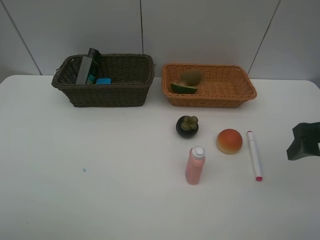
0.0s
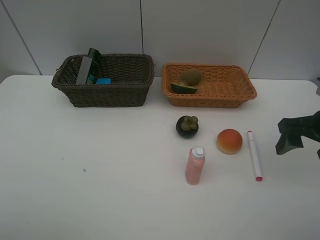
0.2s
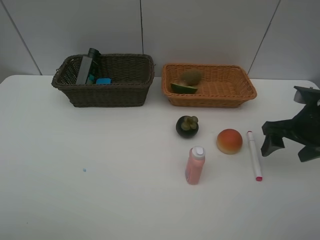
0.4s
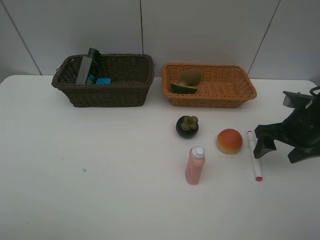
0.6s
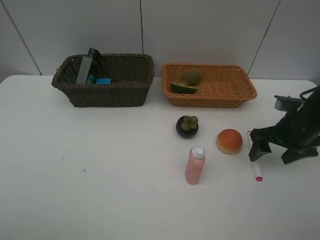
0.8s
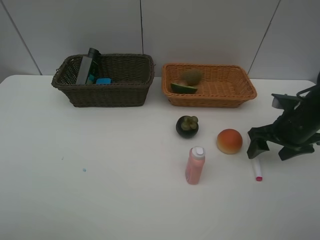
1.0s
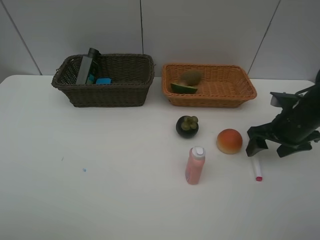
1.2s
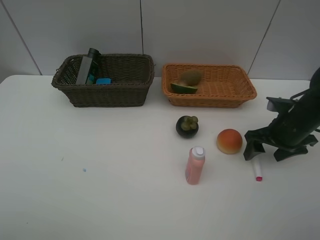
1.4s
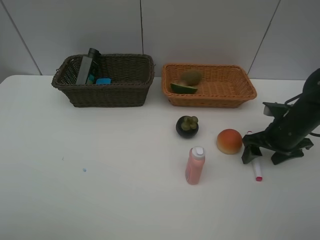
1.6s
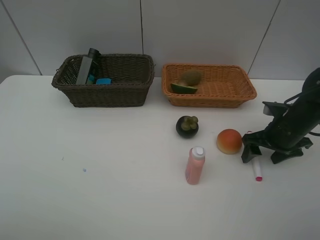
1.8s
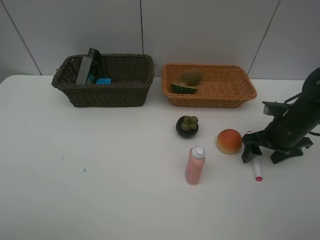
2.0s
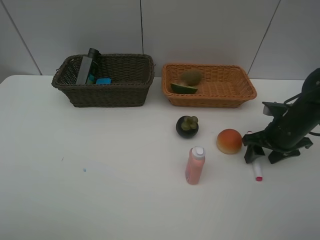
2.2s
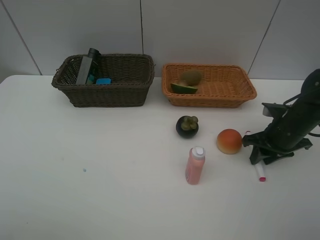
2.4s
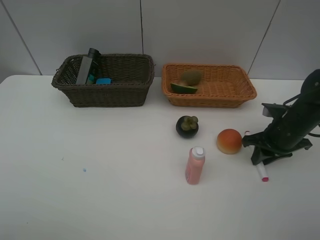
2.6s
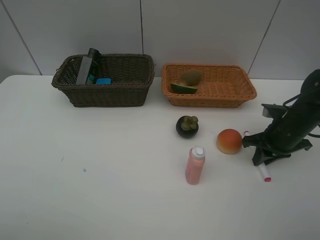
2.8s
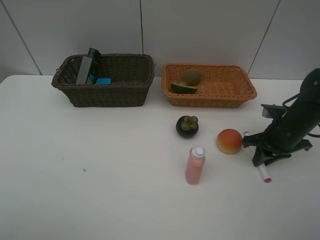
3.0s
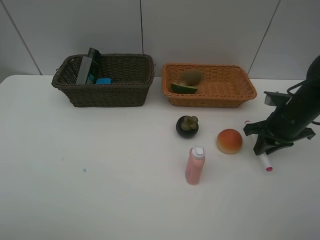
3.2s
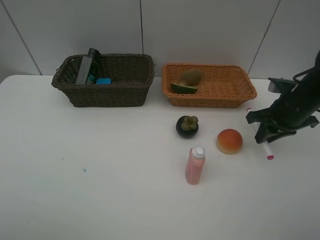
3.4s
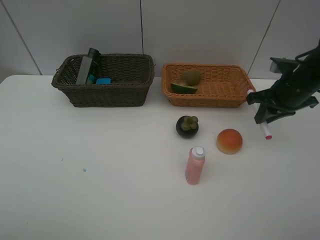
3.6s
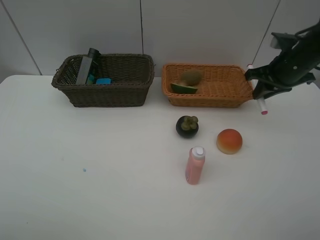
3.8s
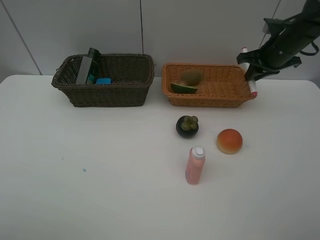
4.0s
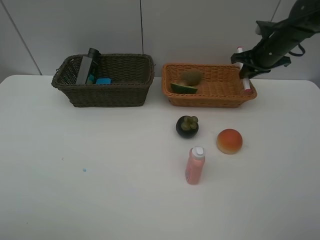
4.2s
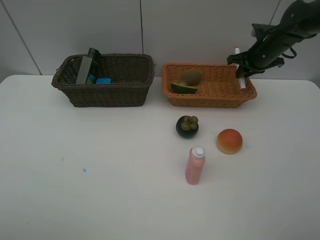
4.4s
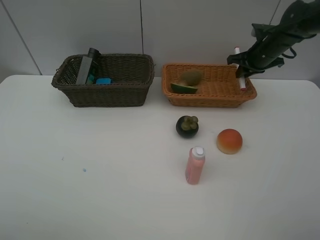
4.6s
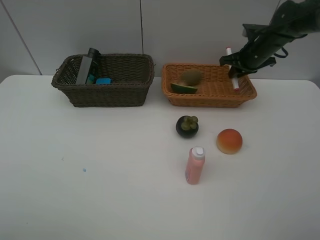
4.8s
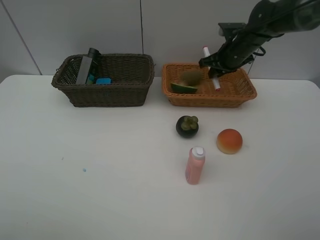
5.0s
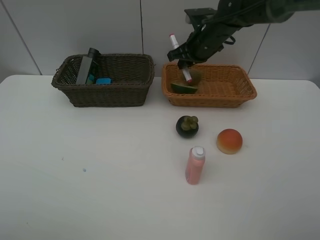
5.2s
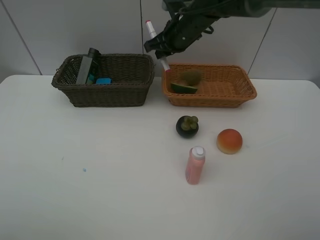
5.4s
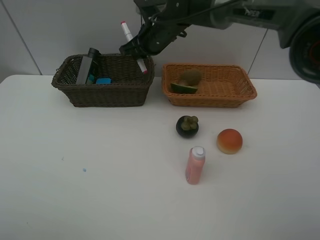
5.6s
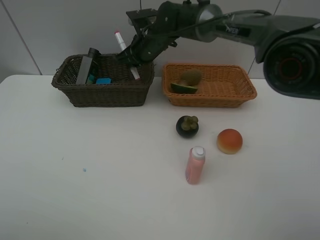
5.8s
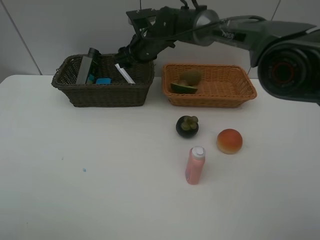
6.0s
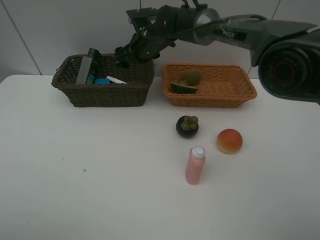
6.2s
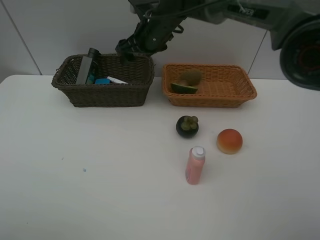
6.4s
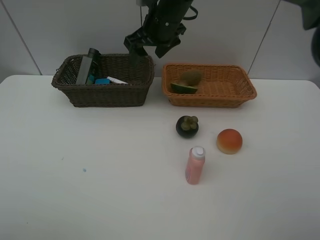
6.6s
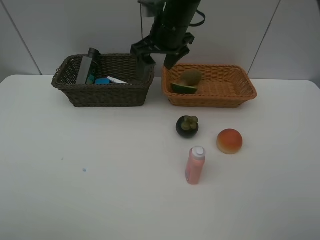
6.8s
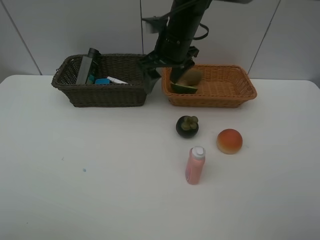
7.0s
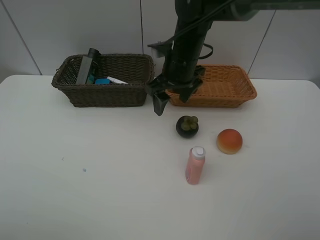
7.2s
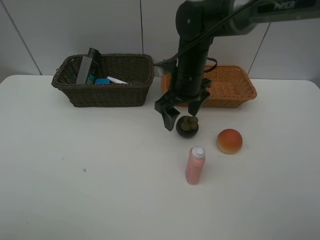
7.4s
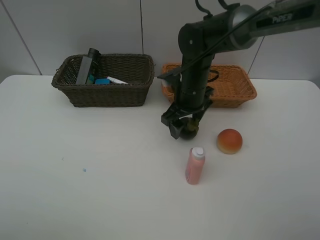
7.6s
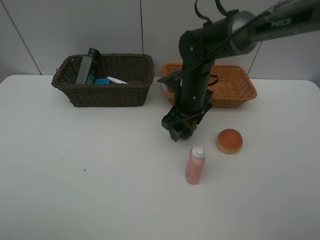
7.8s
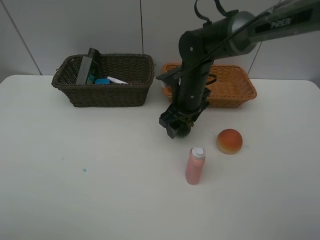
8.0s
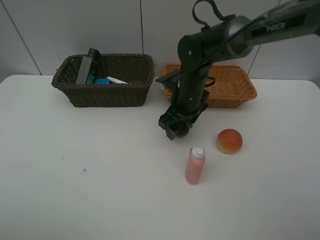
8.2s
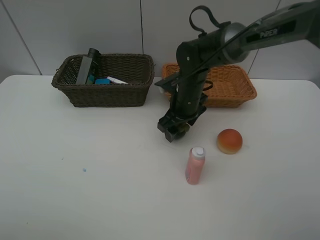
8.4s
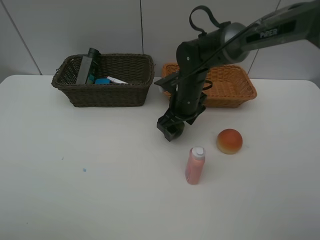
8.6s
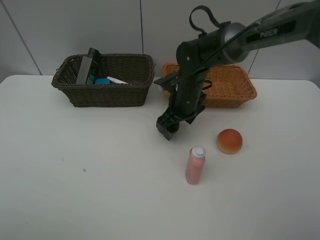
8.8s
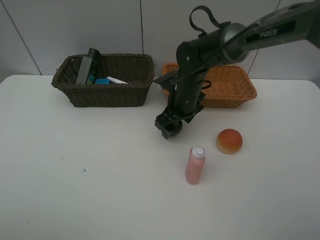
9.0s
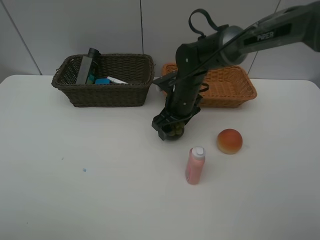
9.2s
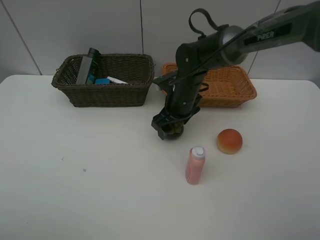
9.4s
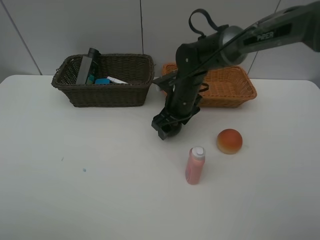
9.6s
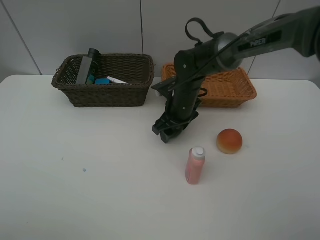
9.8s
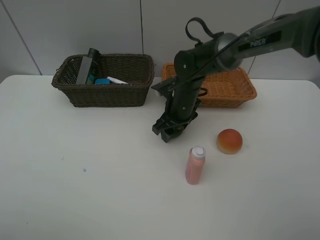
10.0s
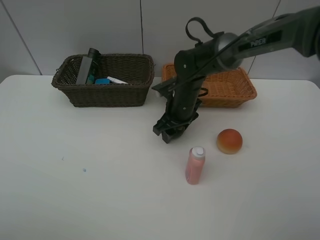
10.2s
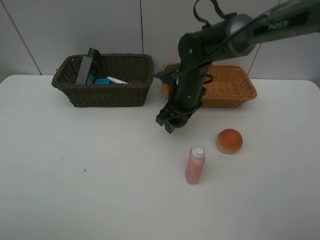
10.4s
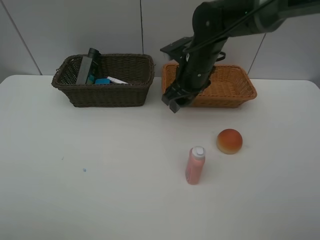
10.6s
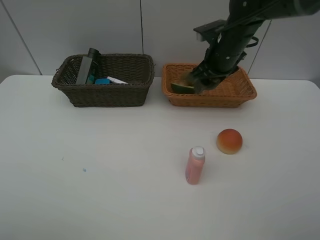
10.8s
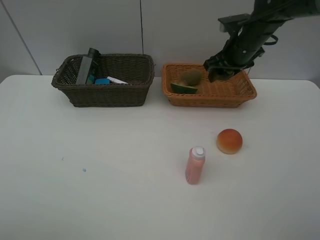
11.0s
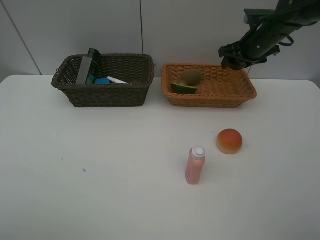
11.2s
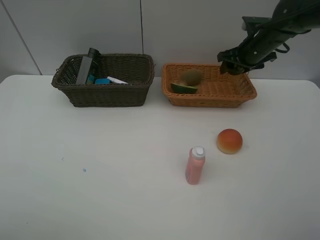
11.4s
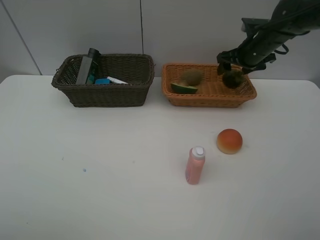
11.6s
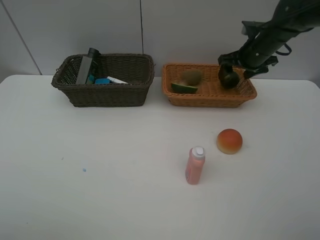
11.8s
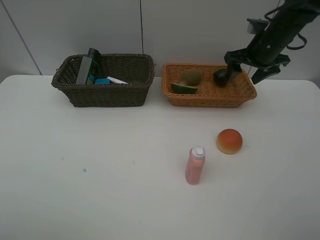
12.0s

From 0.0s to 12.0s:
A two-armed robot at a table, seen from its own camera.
Task of the whole recording: Place multiple objects separately in different baskets.
Step, from 0.0s to 3.2s: Pick up pink marker pen with right gripper.
Step, from 3.4s to 6.2s: Place the pink marker pen in the dark basket with right gripper.
Step, from 6.4s to 10.4s: Pick up the mangosteen with right gripper.
Step, from 10.6s to 11.8s: Place the mangosteen in the light basket with right gripper.
From 0.0s to 1.6s: The right gripper moves downward and forward, approximately 15 cm.
From 1.6s to 3.0s: The right gripper closes its fingers.
From 3.0s to 4.4s: The right gripper heads forward and upward, covering about 20 cm.
From 4.4s to 6.0s: The right gripper heads to the left, covering some 30 cm, and opens its fingers.
From 6.0s to 7.6s: The right gripper shifts approximately 15 cm backward and to the right, and travels upward and back again, some 10 cm each way.
From 7.6s to 10.4s: There are only small adjustments of the grippers.
From 10.4s to 12.0s: The right gripper goes roughly 20 cm to the right and upward.

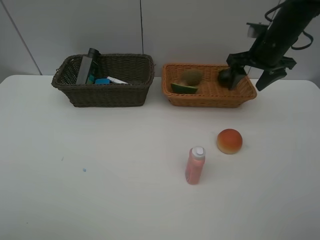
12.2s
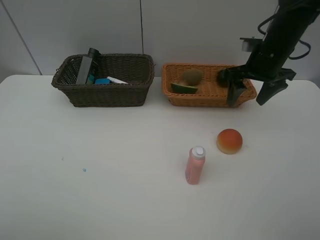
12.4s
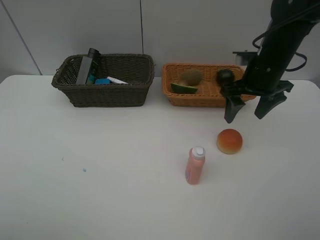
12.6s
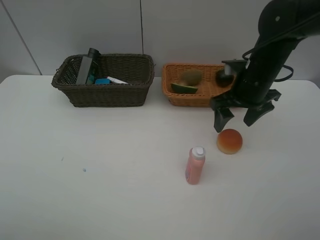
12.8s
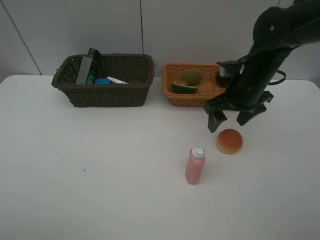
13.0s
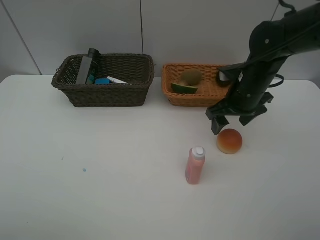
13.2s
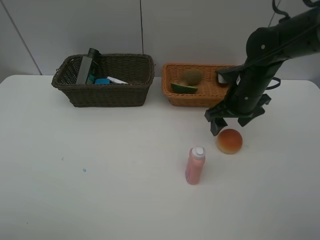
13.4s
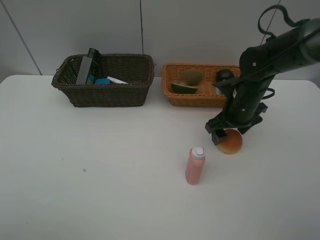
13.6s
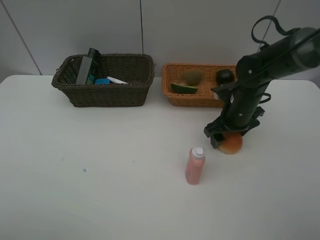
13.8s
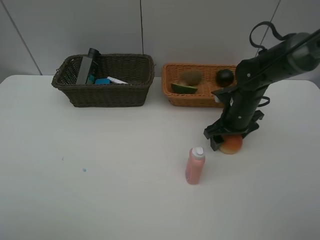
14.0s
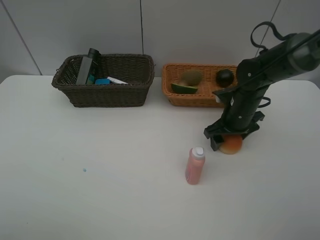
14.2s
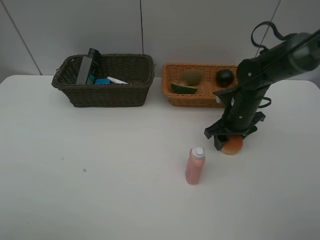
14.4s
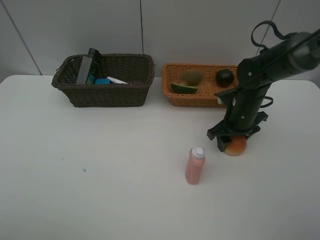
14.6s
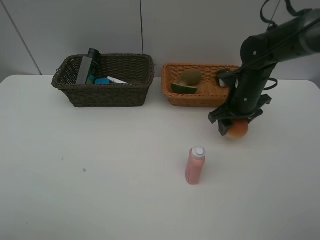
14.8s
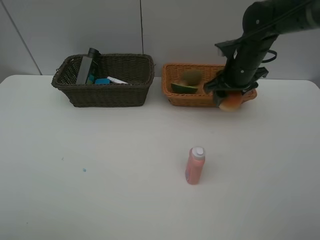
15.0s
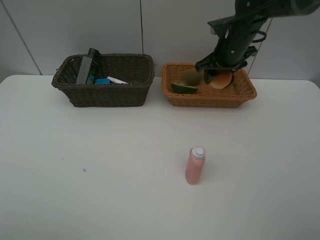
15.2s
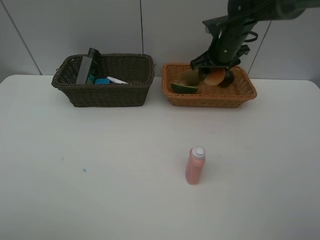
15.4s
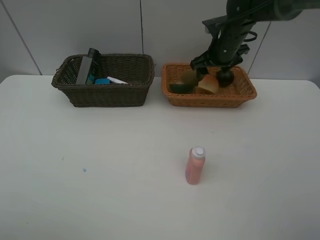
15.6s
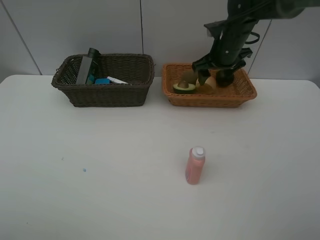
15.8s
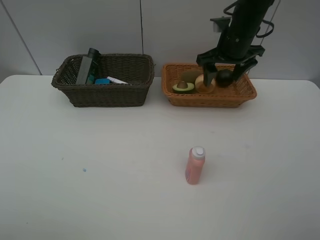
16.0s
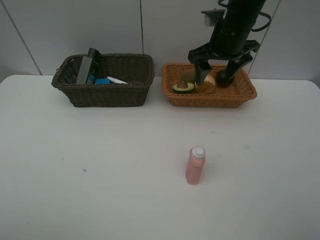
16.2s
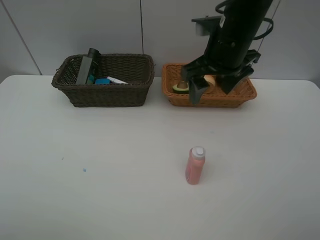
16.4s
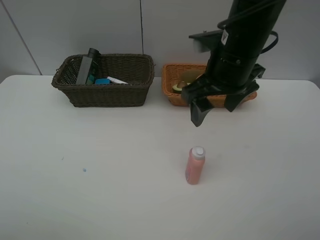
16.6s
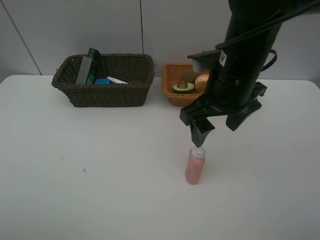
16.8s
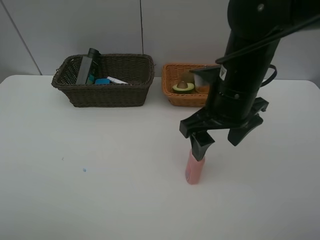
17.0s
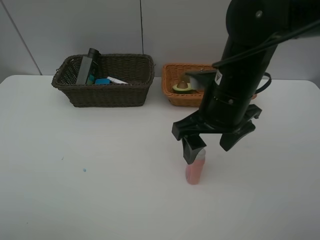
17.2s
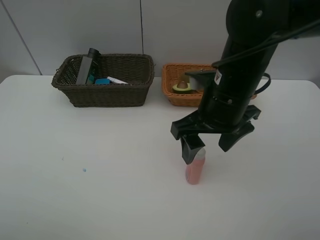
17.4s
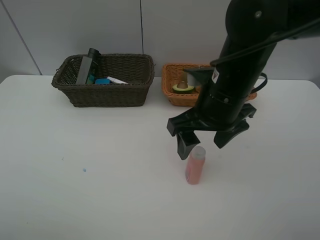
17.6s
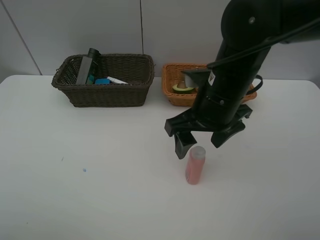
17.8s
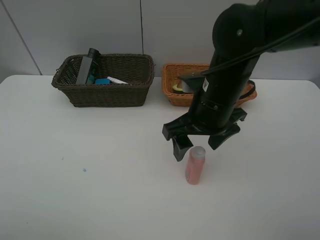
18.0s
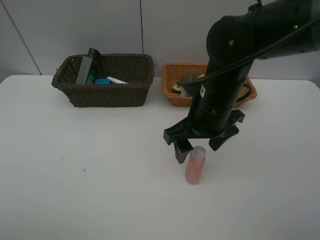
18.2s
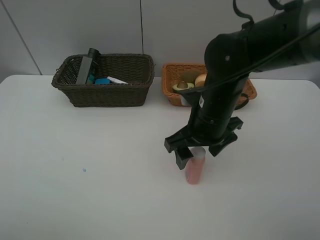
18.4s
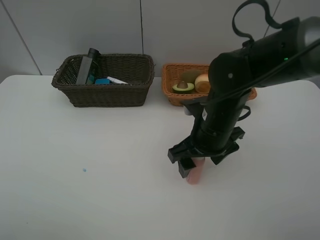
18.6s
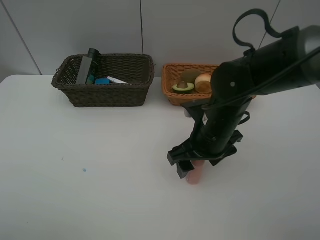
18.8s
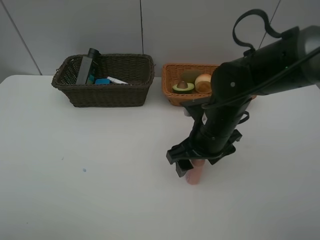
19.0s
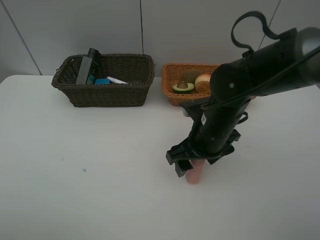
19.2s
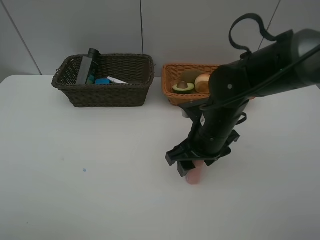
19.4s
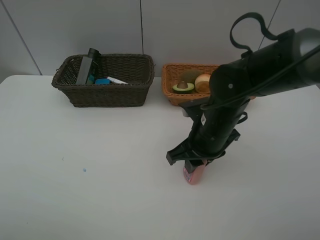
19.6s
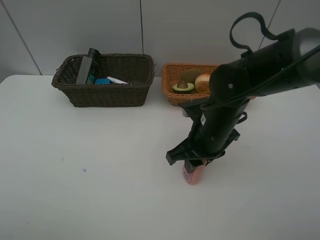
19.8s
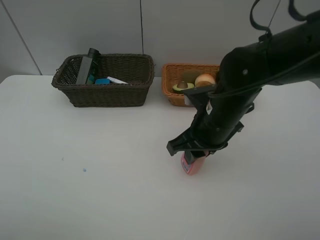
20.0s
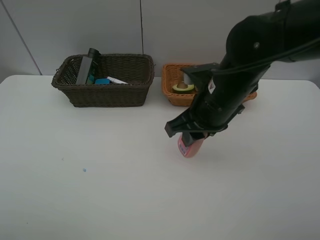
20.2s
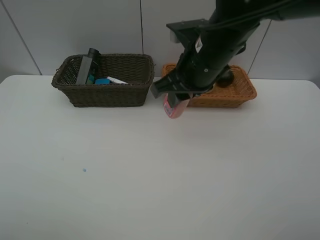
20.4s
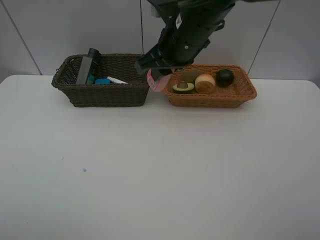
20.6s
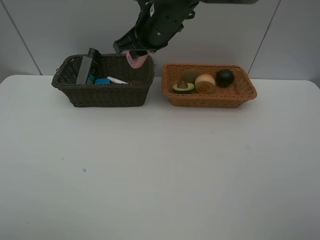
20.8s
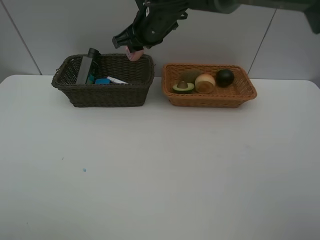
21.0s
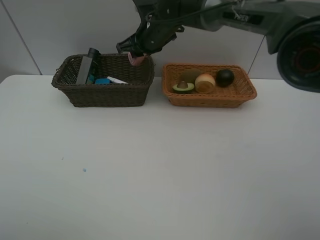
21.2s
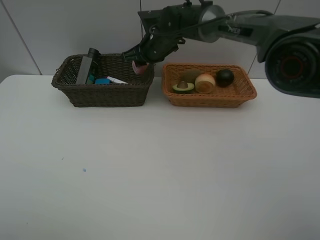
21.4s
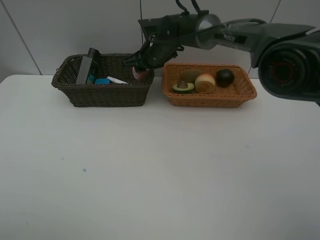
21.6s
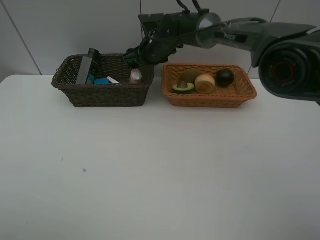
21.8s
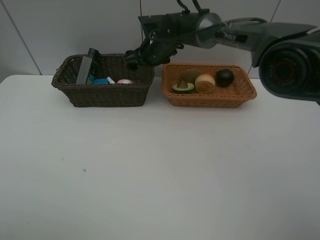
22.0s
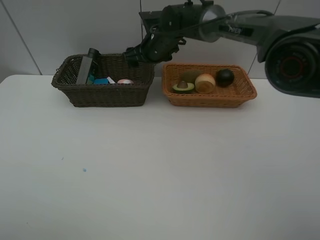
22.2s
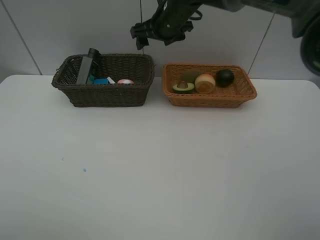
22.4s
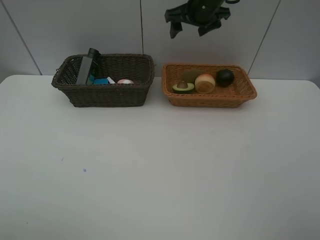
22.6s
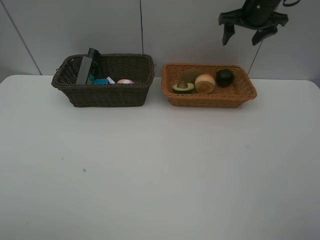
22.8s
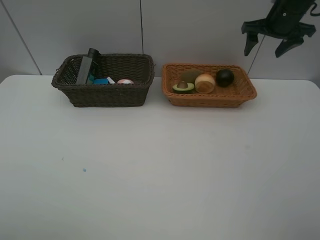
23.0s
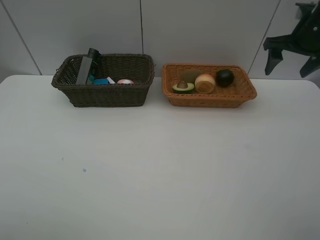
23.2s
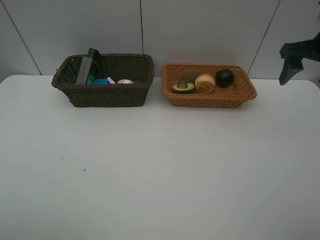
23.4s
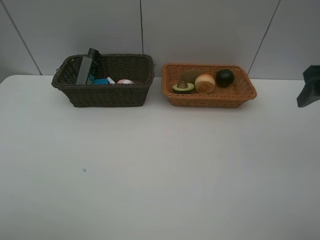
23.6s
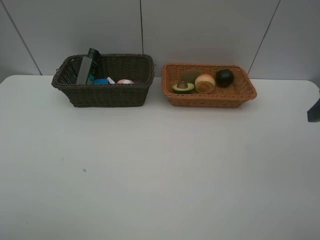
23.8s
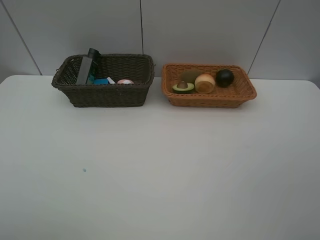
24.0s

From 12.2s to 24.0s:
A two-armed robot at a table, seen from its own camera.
Task of the whole recording: Place multiple objects separately in different baskets.
Step, from 12.2s to 14.8s: Pick up egg yolk pastry with right gripper.
Step, from 15.0s to 15.6s: Place the egg yolk pastry in the light basket with right gripper.
Step, from 15.8s to 20.0s: Pick up the laundry detergent with right gripper.
Step, from 20.2s to 22.0s: Place the laundry detergent in the dark basket with right gripper.
From 12.2s to 13.6s: The right gripper moves downward and backward, approximately 15 cm.
From 13.6s to 15.2s: The right gripper travels forward and upward by approximately 15 cm.
From 15.2s to 16.6s: The right gripper moves backward, about 15 cm.
From 16.6s to 18.2s: The right gripper heads downward, covering approximately 10 cm.
From 18.2s to 19.6s: The right gripper is displaced downward by some 5 cm, and closes up.
From 19.6s to 21.0s: The right gripper is displaced forward, upward and to the left by about 25 cm.
From 21.0s to 22.6s: The right gripper shifts roughly 15 cm to the right, and opens.
From 22.6s to 24.0s: The right gripper travels backward and to the right by approximately 40 cm.
